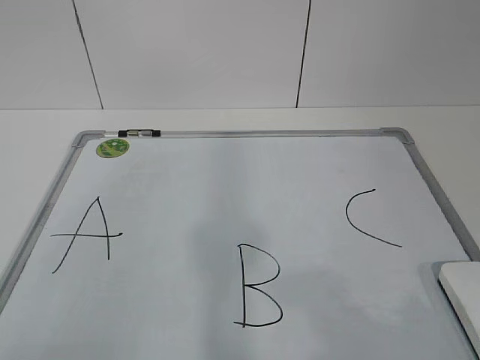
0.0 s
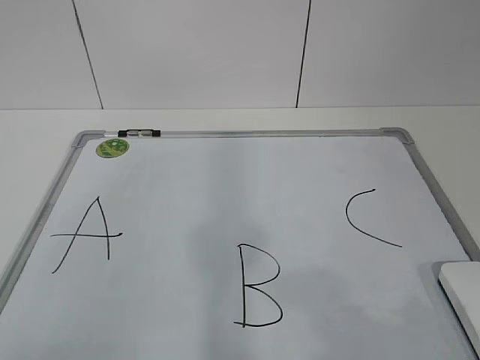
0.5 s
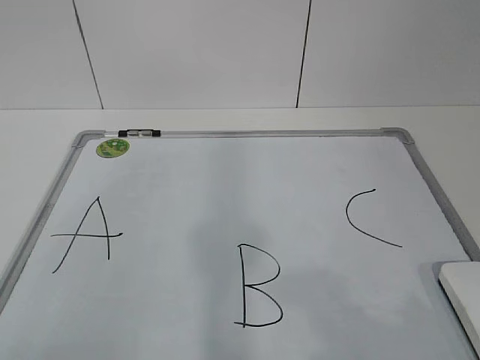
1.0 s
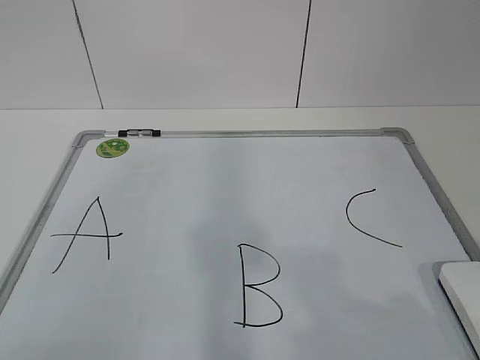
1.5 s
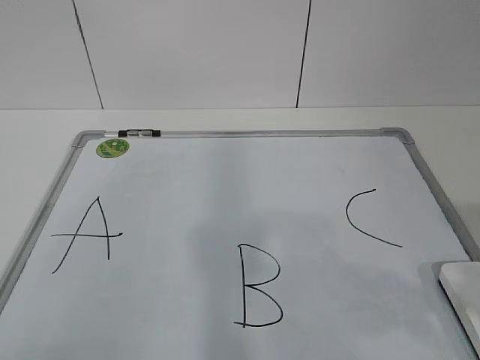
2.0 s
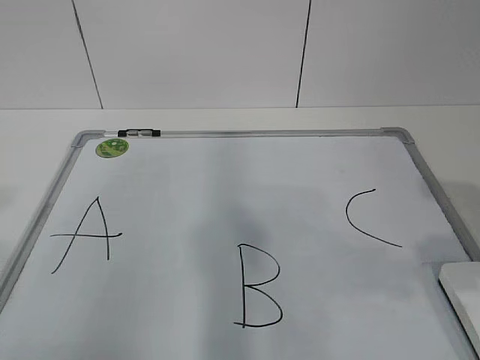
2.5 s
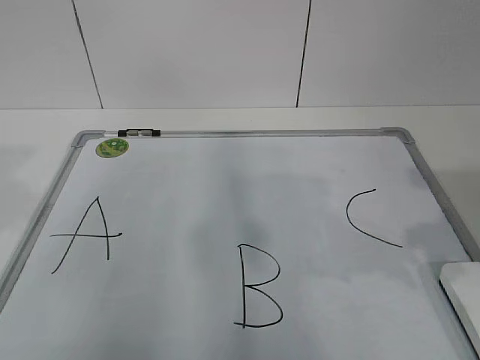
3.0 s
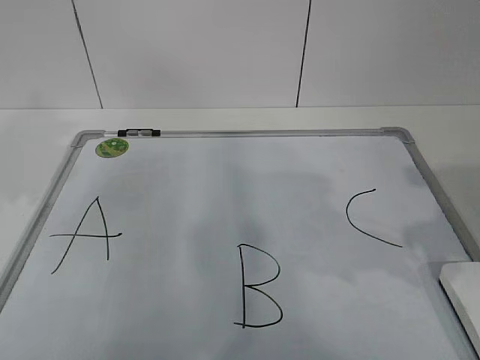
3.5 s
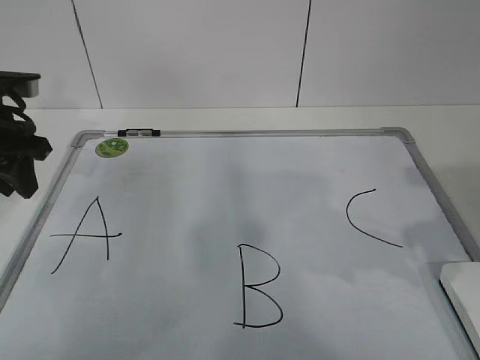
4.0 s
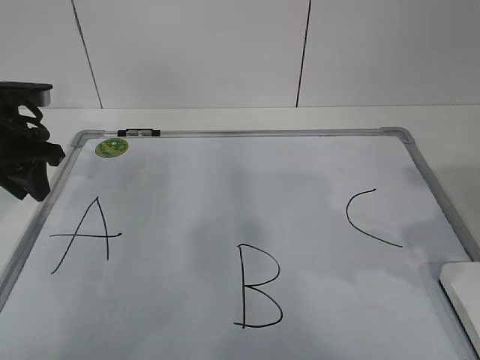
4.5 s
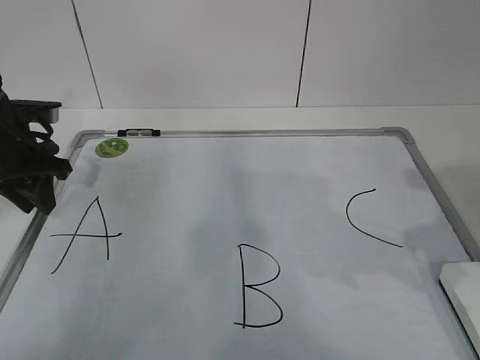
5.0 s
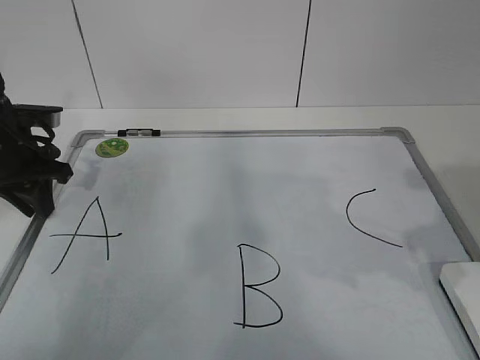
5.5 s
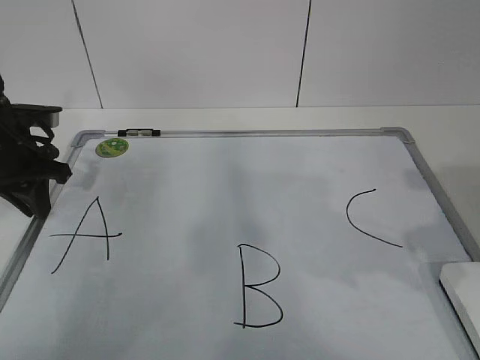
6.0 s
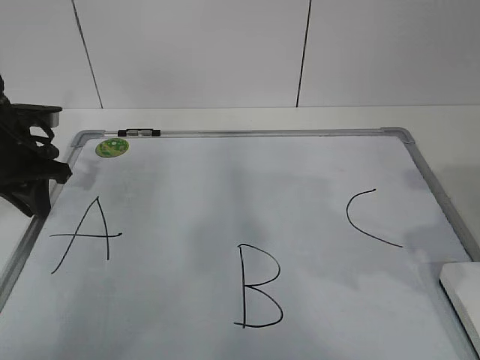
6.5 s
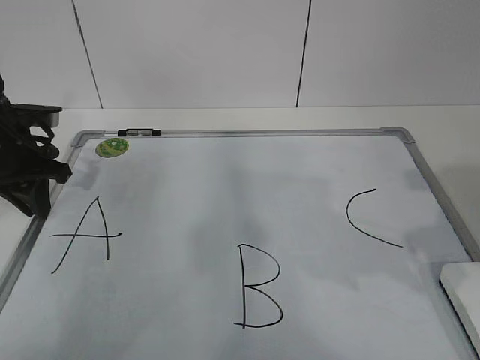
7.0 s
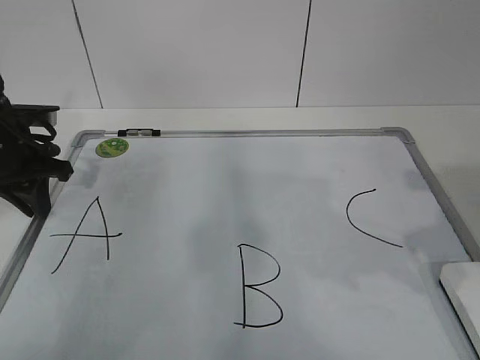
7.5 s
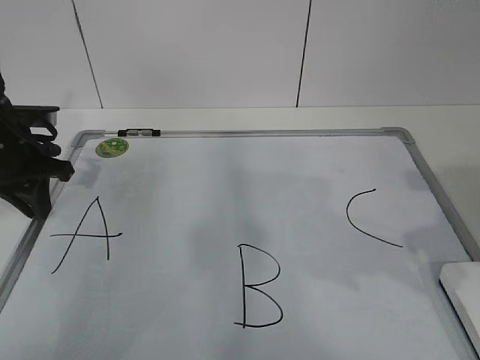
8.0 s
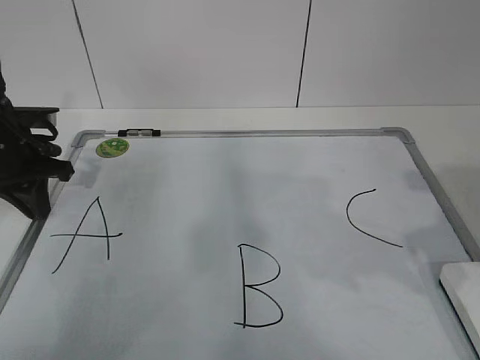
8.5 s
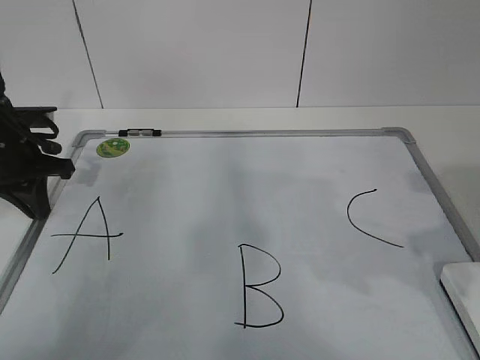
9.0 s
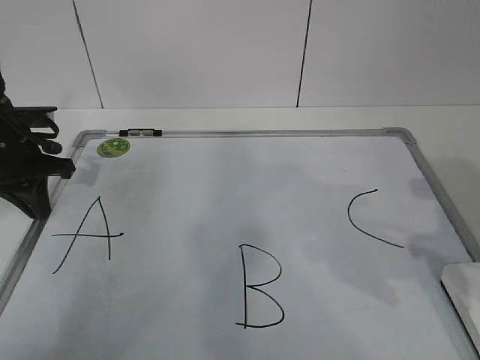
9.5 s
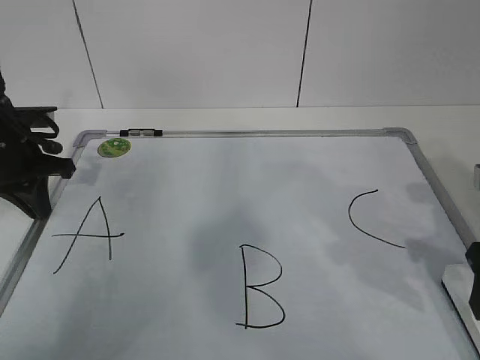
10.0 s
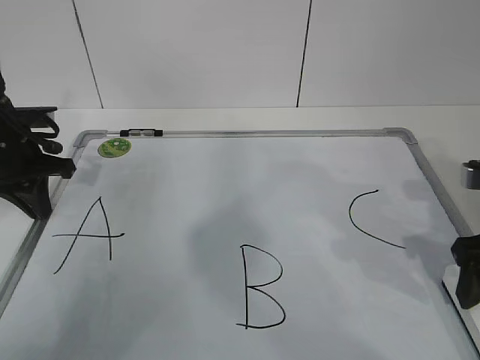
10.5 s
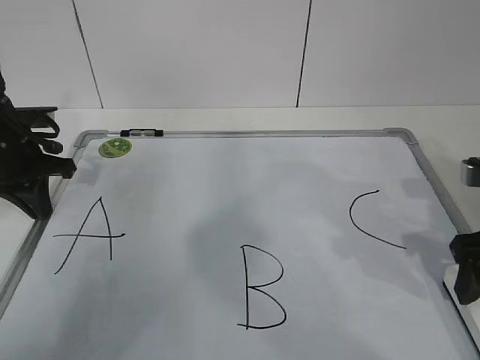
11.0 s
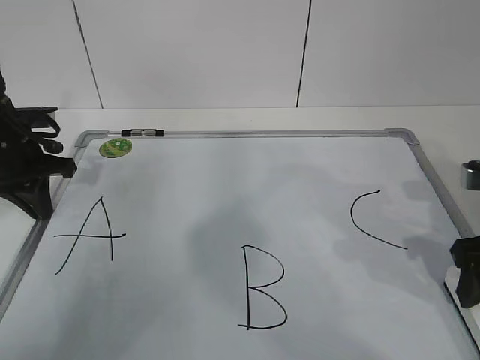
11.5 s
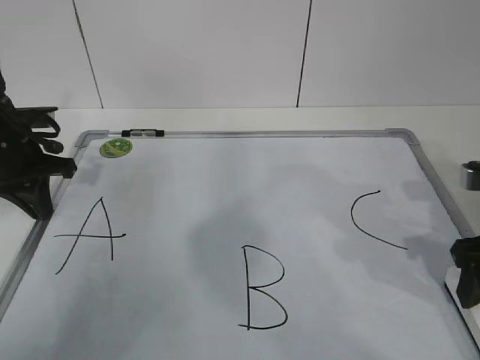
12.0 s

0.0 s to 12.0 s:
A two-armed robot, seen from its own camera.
Task of the whole recording: pick up the eraser on the blackboard and erase the letter "B".
Step, 0.0 to 7.0 s: Hold the drawing board steady with your left hand.
2.0 to 4.0 s: The right gripper heads forward, covering approximately 10 cm; the left gripper moves forward, roughly 35 cm.
4.0 to 6.0 s: The left gripper heads downward, covering some 5 cm, and closes up.
6.0 to 8.0 s: Both grippers stay put.
8.0 to 10.0 s: The right gripper travels downward and forward by about 10 cm, and opens. Meanwhile the left gripper closes its fingers.
10.0 to 12.0 s: The right gripper closes.

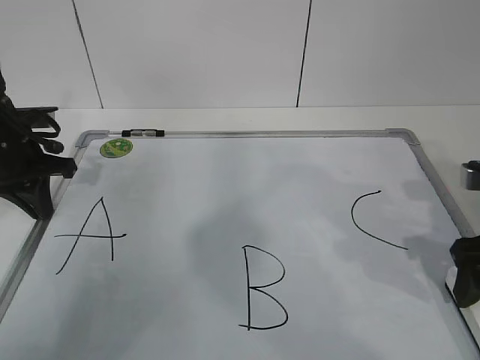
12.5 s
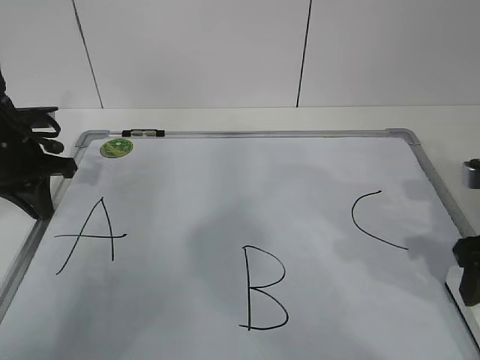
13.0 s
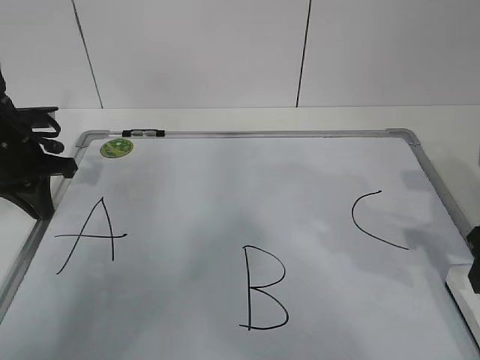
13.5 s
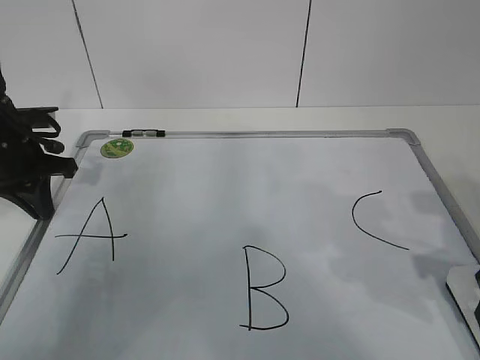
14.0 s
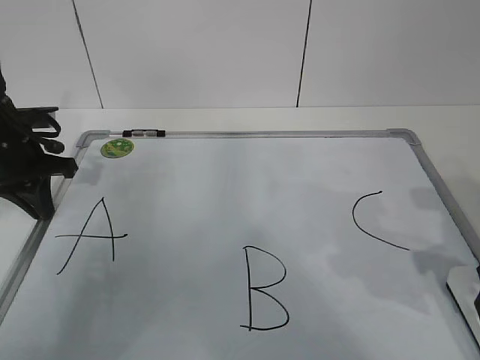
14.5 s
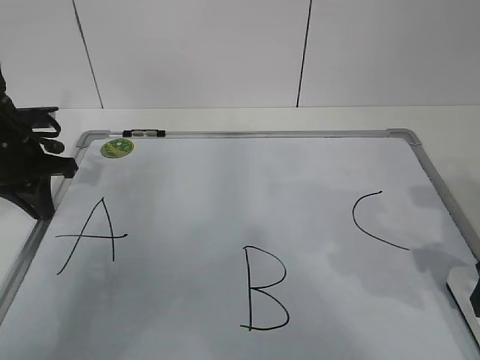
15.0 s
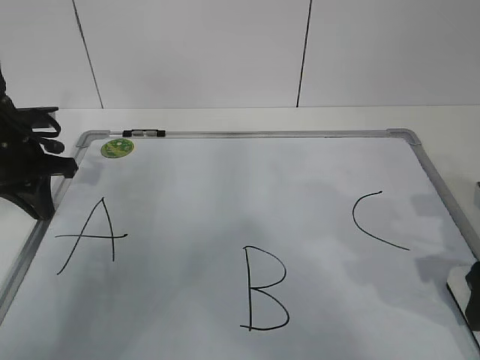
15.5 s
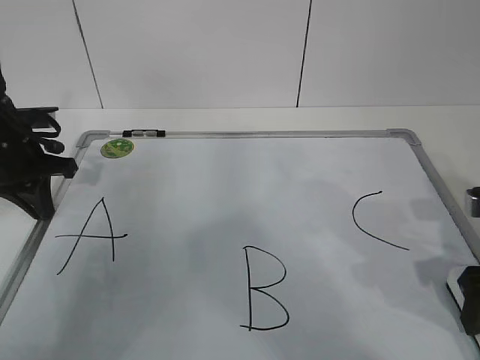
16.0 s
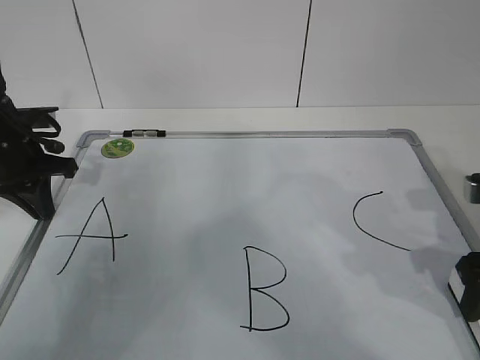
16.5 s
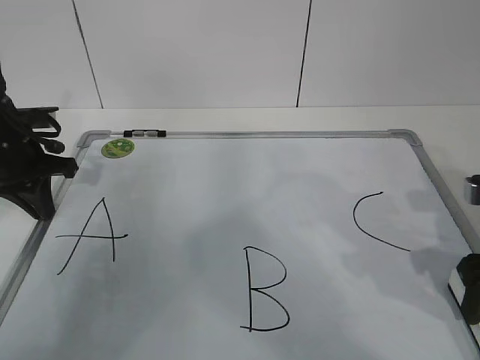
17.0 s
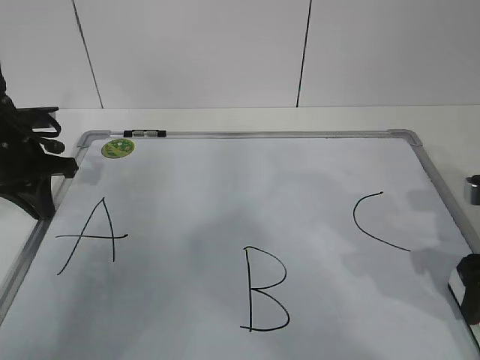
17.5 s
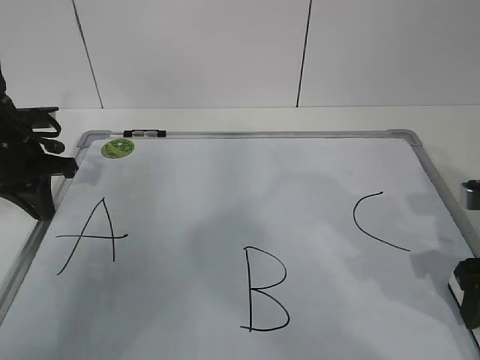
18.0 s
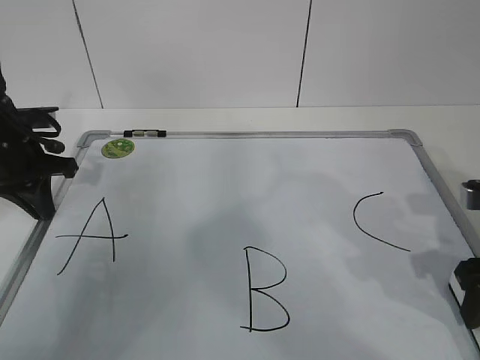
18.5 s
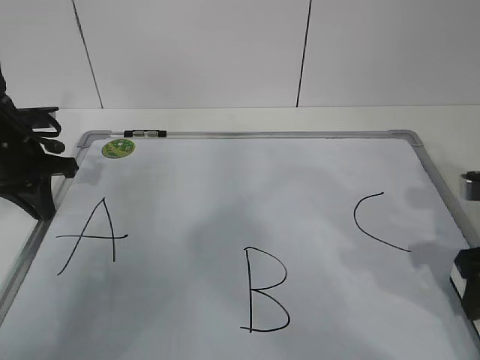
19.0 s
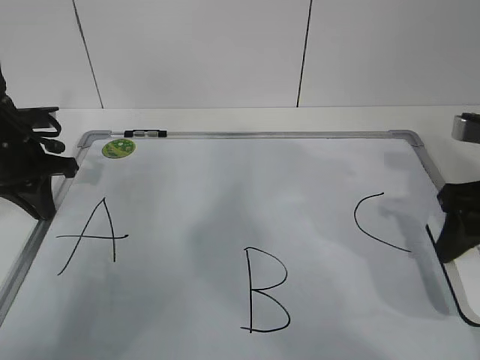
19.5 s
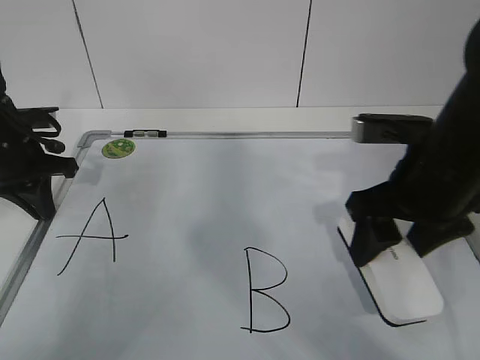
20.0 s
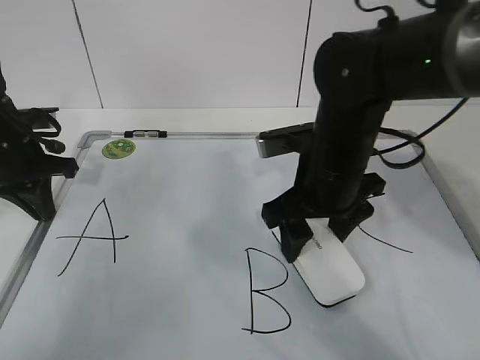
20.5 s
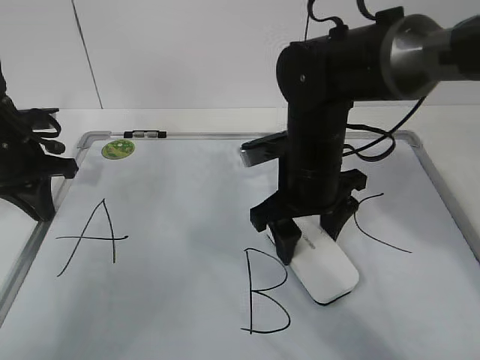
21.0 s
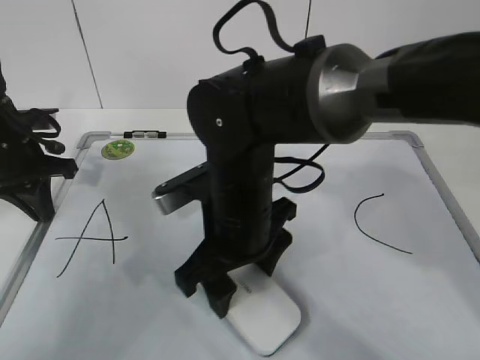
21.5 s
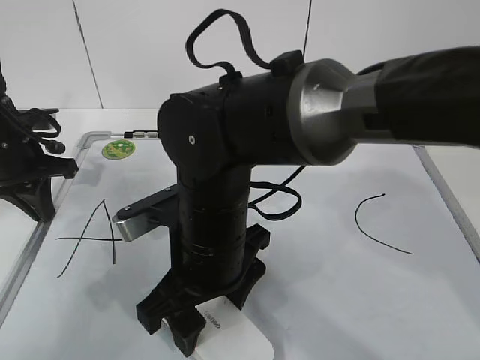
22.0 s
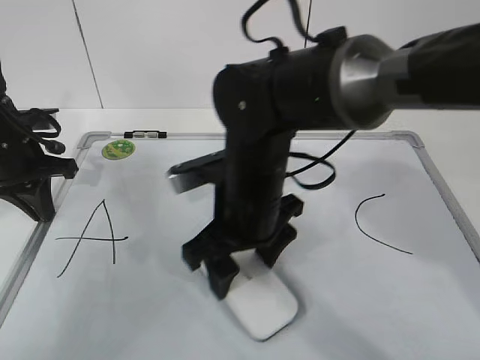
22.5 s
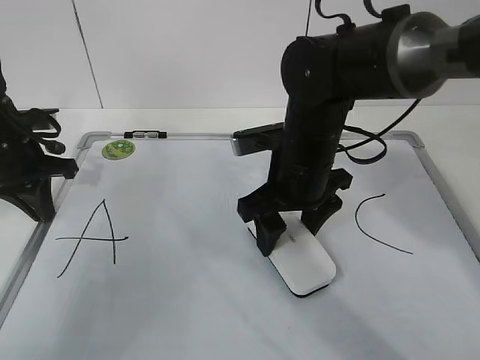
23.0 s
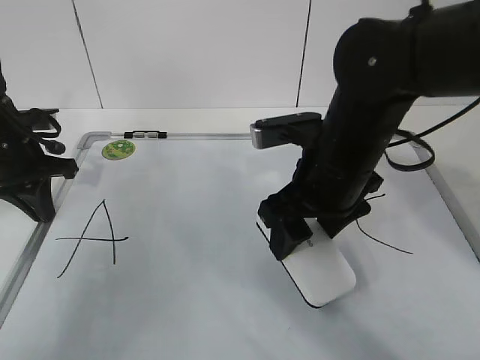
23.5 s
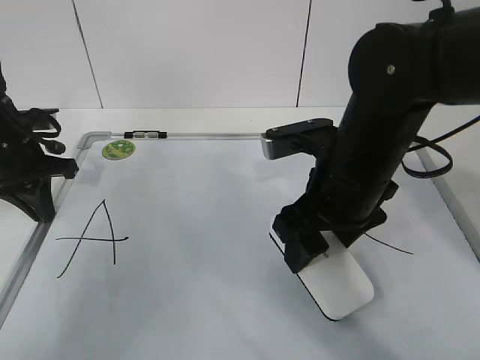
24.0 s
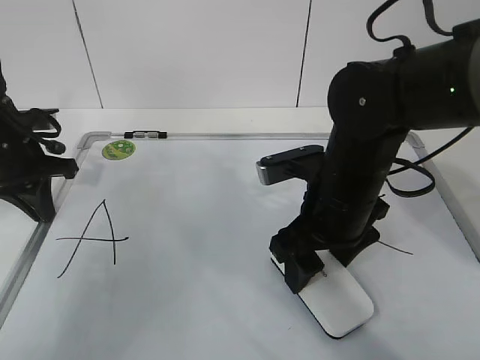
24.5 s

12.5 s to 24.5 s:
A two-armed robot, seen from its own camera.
Task of the whole recording: pick up the eraser on the blackboard and erase the letter "B".
Step, 12.5 to 15.0 s: Grab the eraser with your right hand.
Step, 15.5 to 18.5 s: Erase the letter B with your right hand.
12.5 to 14.5 s: The right gripper closes.
14.5 to 16.5 s: The right gripper opens, then closes again.
18.5 to 20.5 s: The right gripper is displaced to the left and forward by roughly 20 cm.
20.5 to 22.5 s: The right gripper shifts roughly 10 cm to the left.
22.5 to 24.5 s: The right gripper travels to the right by some 10 cm.

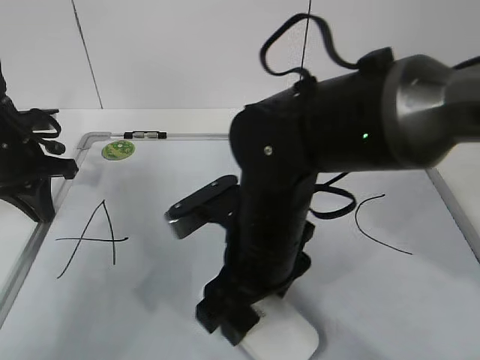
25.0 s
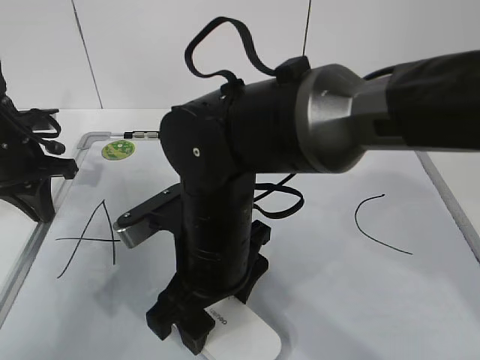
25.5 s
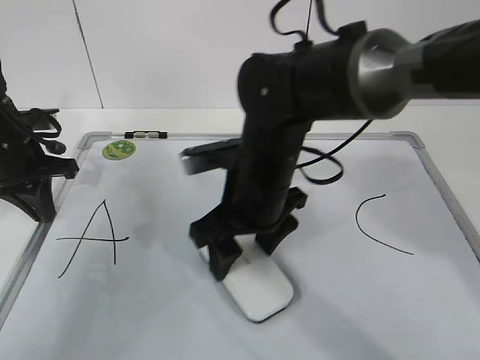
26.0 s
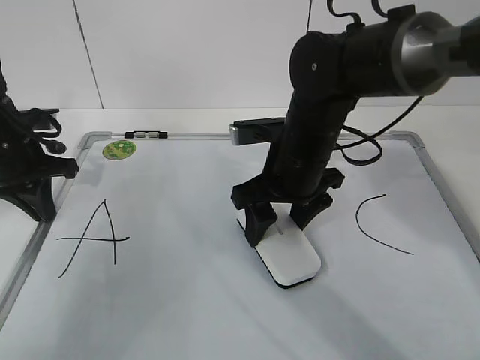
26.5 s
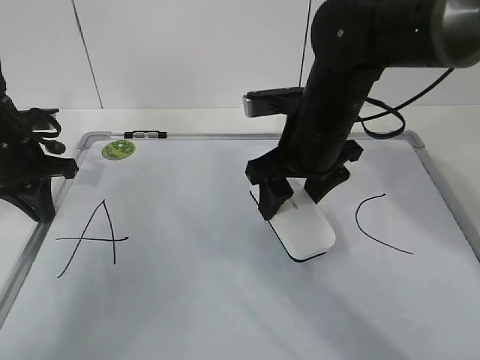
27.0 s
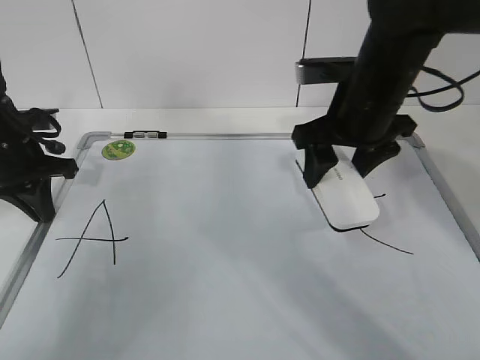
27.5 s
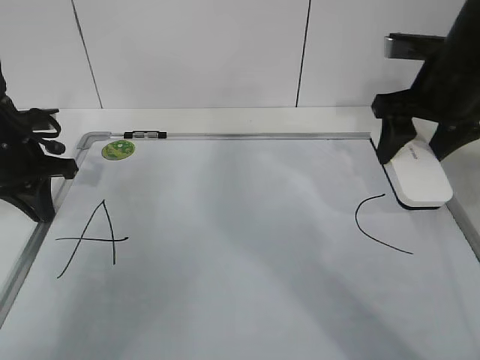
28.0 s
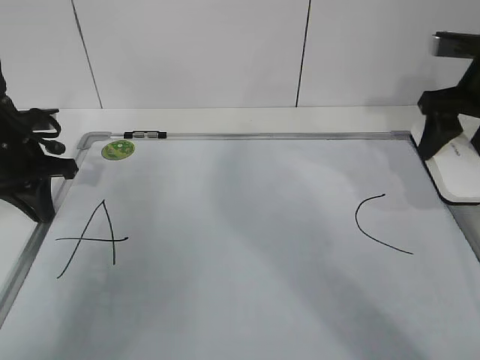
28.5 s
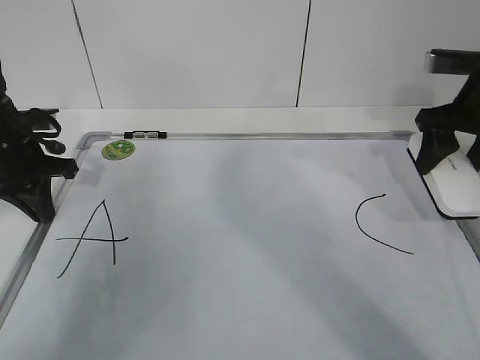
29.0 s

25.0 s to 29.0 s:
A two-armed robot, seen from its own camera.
Task of the whole recording: pick up the eraser on the blackboard and erase the letter "B".
25.0 to 27.0 s: The right gripper is displaced forward and to the right by roughly 10 cm.
27.0 to 29.0 s: The right gripper travels to the right by roughly 20 cm.
